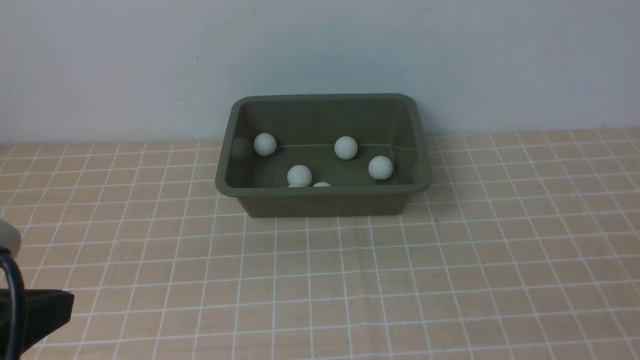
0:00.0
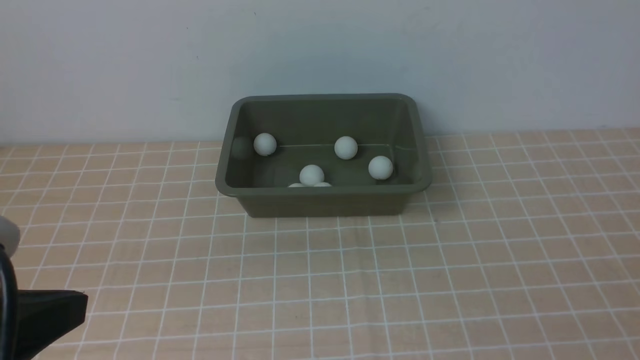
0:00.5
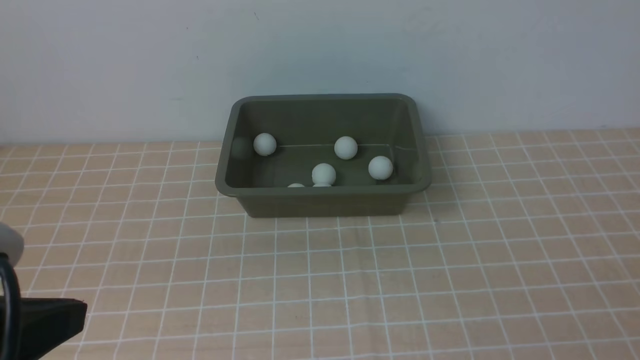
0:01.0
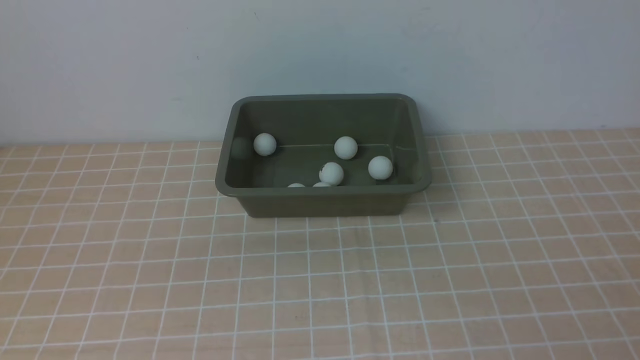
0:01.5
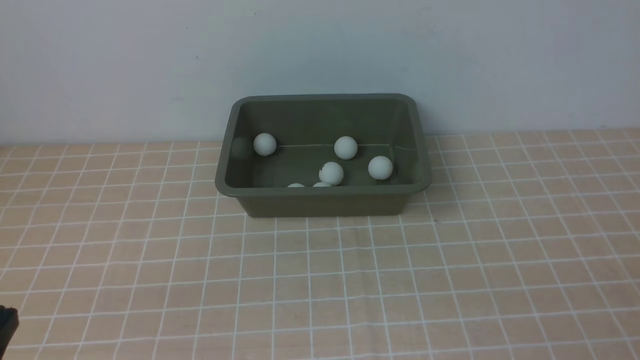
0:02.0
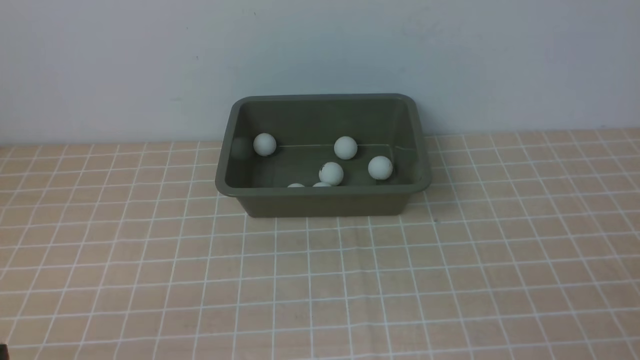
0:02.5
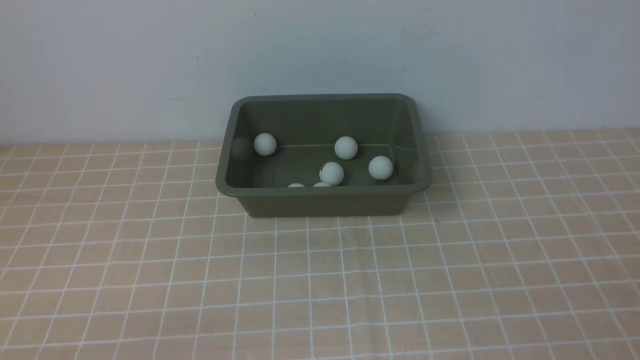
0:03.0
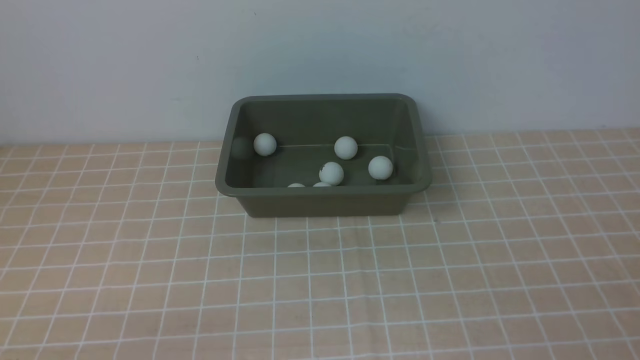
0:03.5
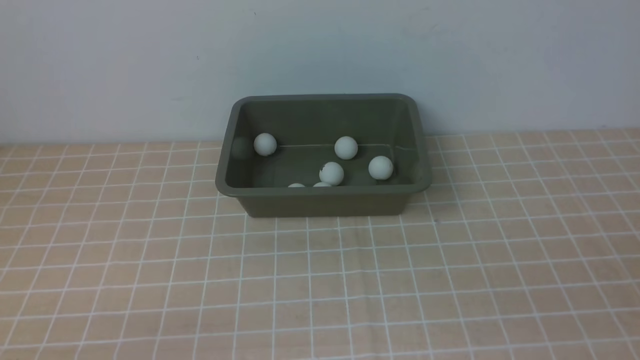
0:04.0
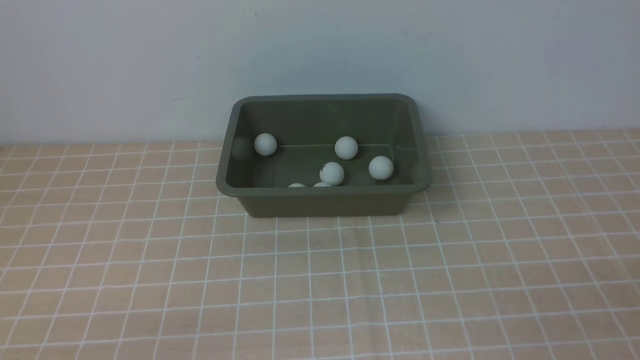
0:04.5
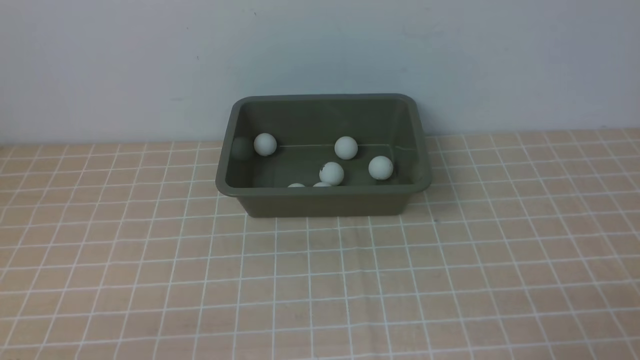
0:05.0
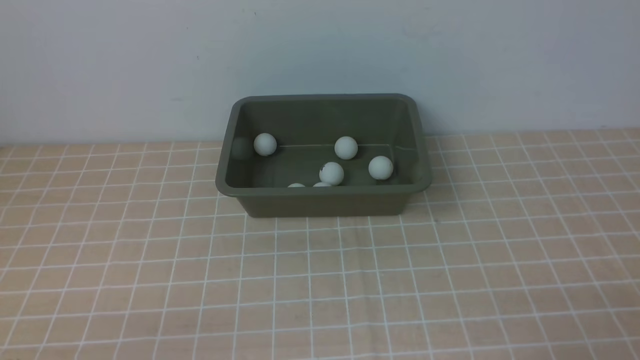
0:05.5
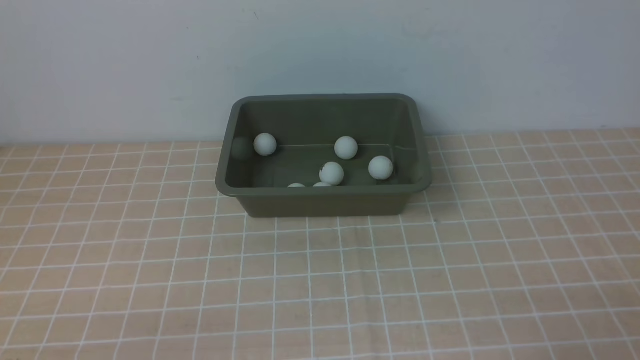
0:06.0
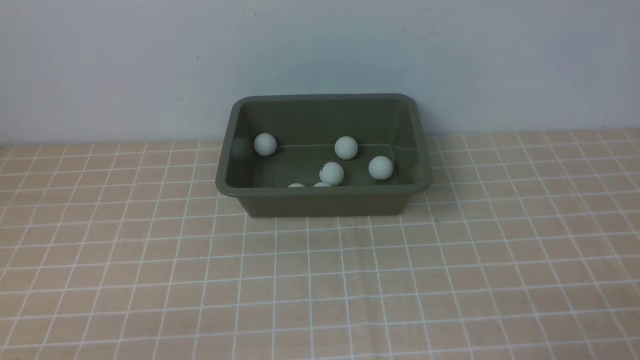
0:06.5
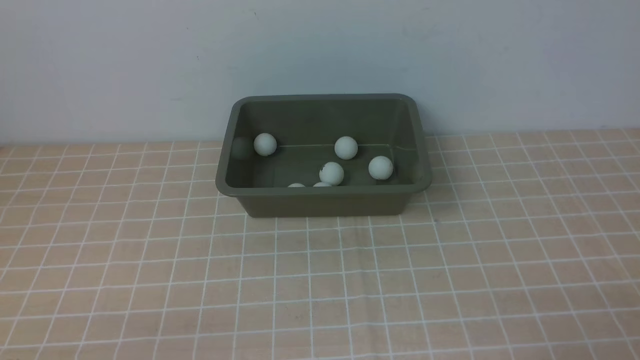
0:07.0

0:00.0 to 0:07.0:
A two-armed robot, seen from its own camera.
0:00.0 to 0:02.0: The left gripper travels downward by some 10 cm.
0:05.0 to 0:07.0: Both grippers stay about where they are.
